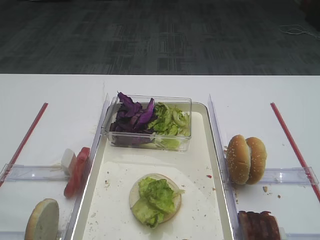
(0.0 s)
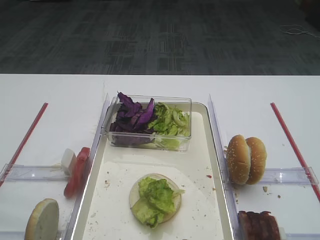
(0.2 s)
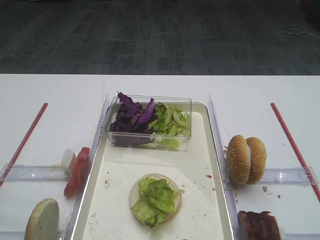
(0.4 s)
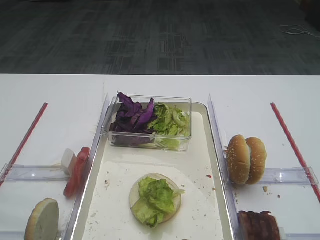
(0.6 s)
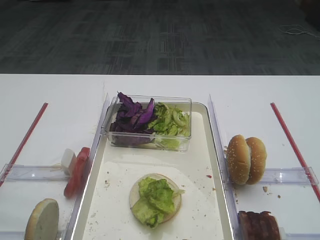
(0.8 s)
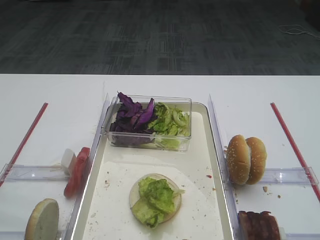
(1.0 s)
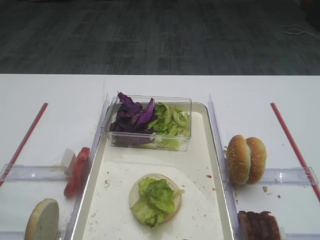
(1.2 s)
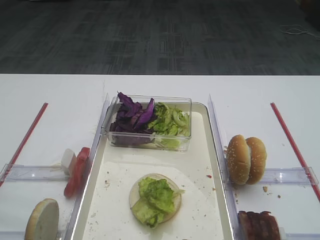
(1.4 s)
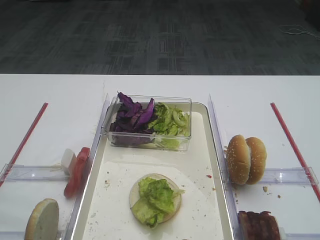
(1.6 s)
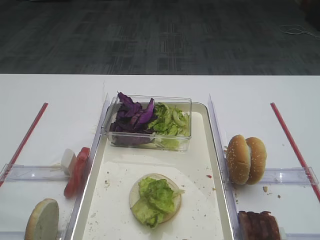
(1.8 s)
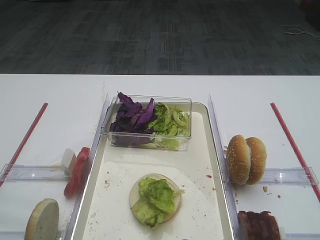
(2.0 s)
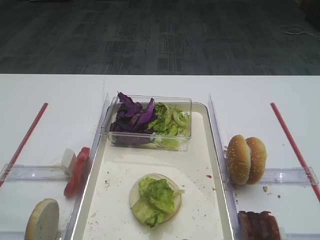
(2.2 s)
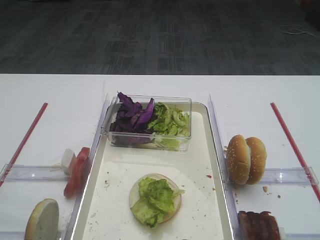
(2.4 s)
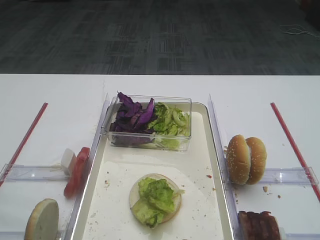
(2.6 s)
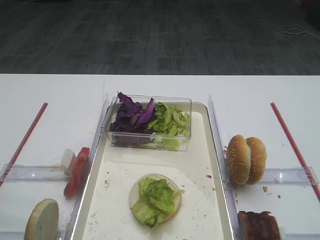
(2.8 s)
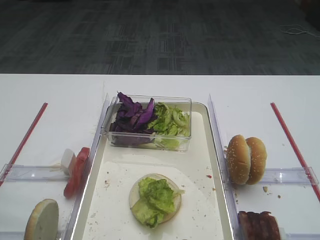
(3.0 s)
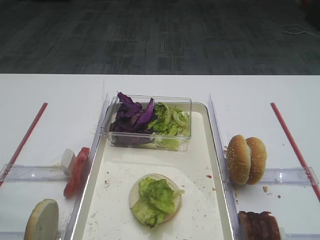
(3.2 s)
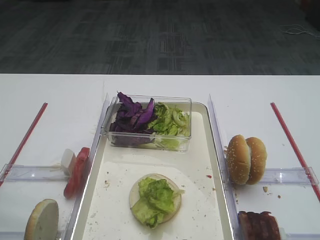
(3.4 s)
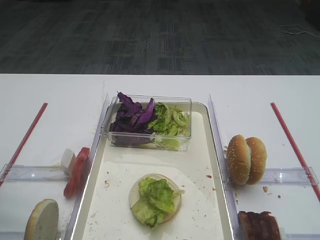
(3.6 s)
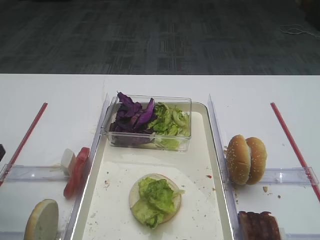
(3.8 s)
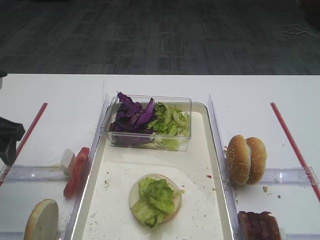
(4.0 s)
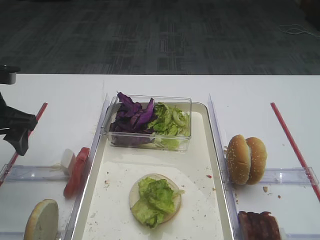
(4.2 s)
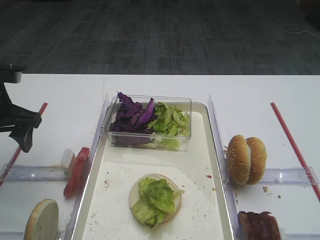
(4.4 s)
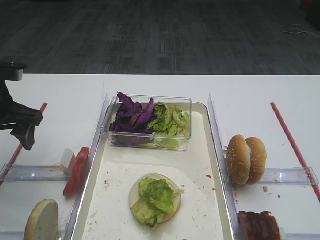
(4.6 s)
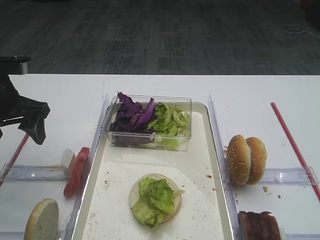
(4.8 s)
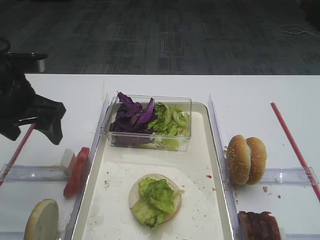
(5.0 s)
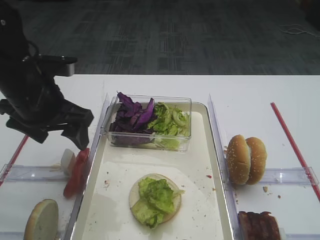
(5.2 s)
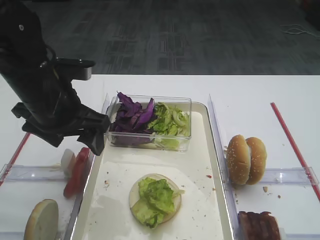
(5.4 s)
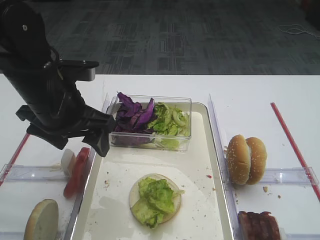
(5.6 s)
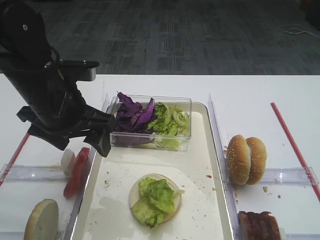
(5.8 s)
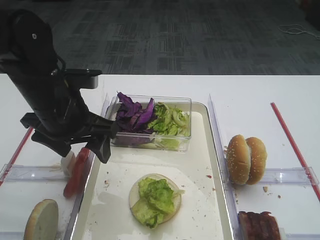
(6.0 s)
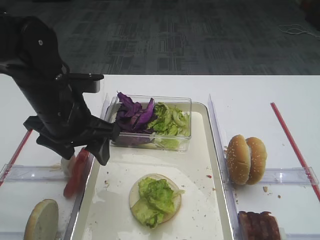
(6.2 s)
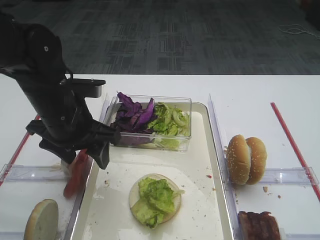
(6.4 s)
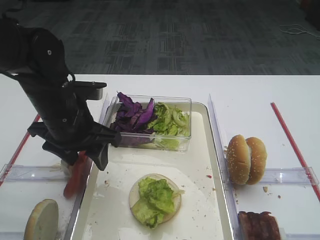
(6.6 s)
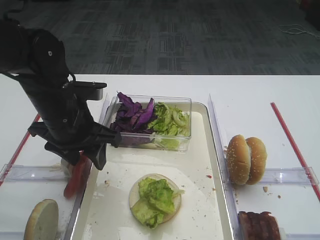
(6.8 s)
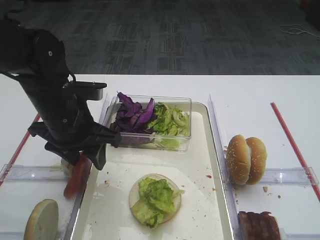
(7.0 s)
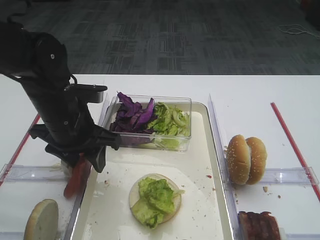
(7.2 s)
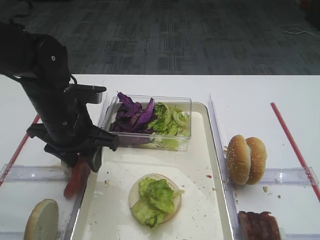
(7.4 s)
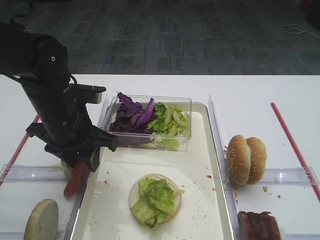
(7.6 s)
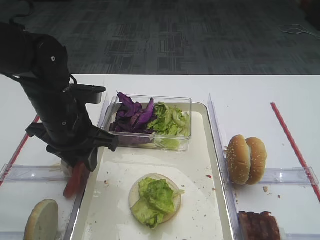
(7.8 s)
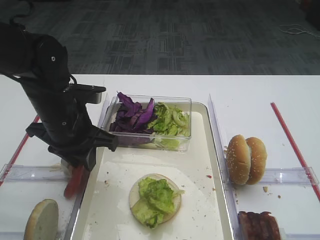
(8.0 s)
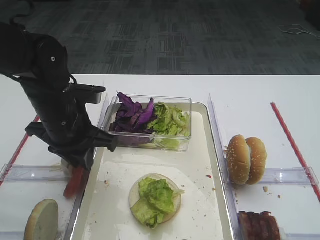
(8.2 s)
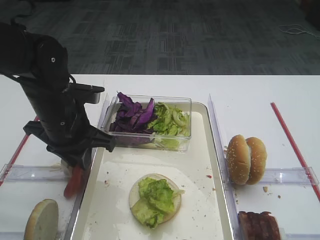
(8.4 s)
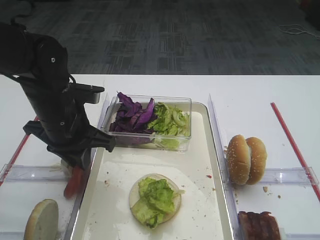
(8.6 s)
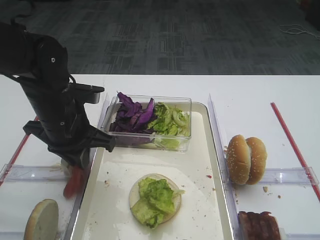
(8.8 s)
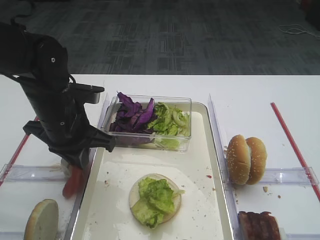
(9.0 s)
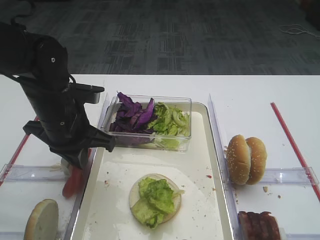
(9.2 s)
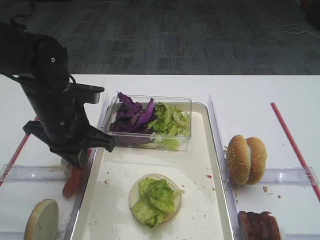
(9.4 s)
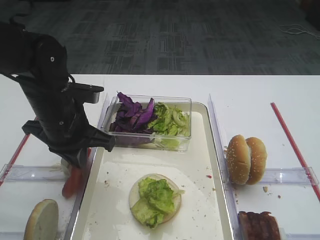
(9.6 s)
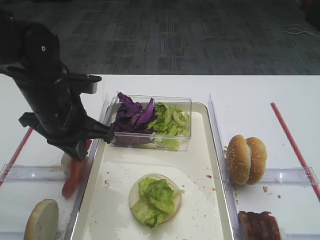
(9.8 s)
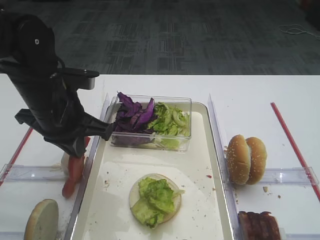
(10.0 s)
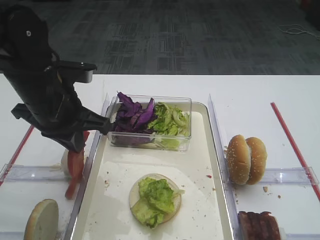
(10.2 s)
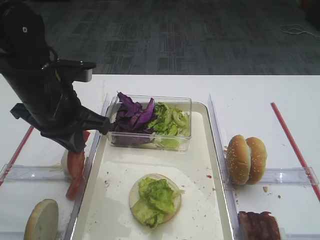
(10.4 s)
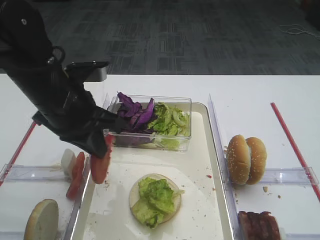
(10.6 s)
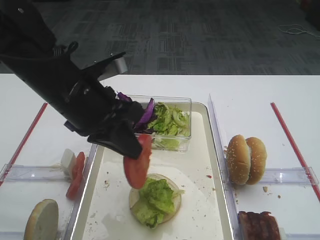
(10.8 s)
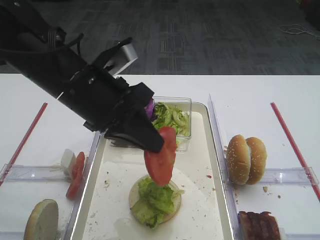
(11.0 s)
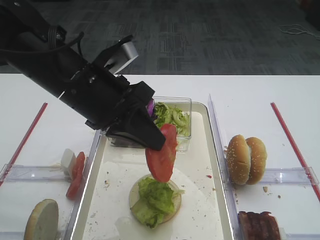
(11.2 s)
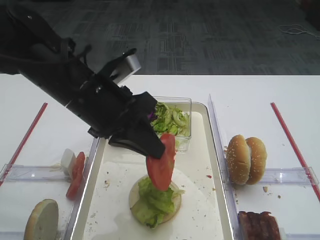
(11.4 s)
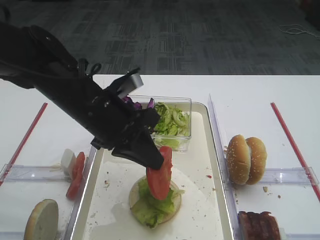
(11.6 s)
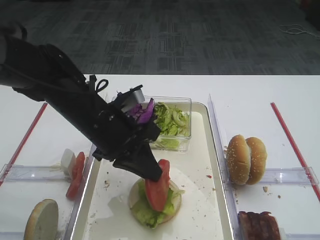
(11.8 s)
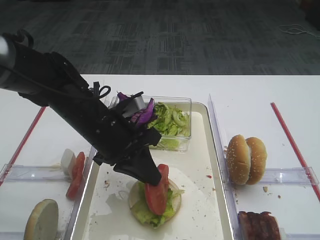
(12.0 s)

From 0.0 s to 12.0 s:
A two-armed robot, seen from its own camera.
Step, from 0.0 s to 10.2 s: Pick up the tomato slice with the left gripper.
From 3.0 s to 4.4 s: The left gripper heads forward, covering about 20 cm.
From 4.4 s to 6.0 s: The left gripper is displaced to the right by roughly 10 cm.
From 6.0 s to 7.6 s: The left gripper closes its fingers.
From 7.6 s to 9.0 s: The left gripper closes its fingers.
From 9.0 s to 10.4 s: The left gripper ends up approximately 5 cm from where it was.
From 10.4 s to 12.0 s: The left gripper goes some 10 cm to the right and downward.

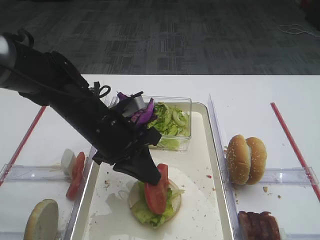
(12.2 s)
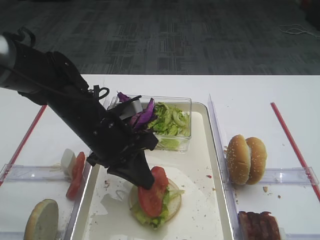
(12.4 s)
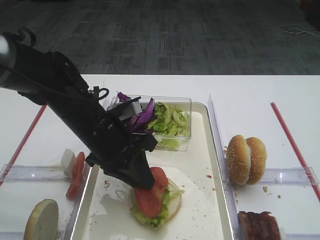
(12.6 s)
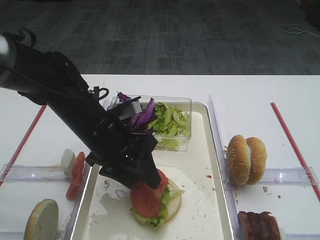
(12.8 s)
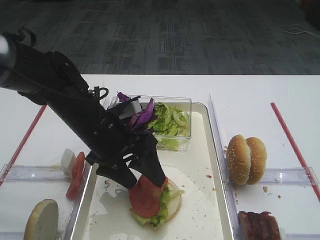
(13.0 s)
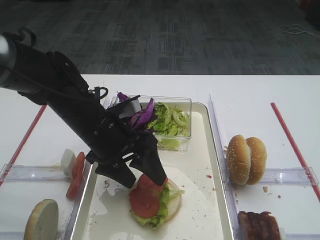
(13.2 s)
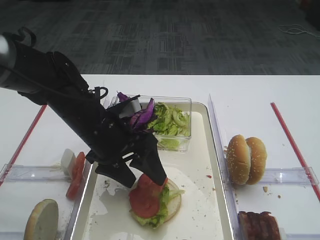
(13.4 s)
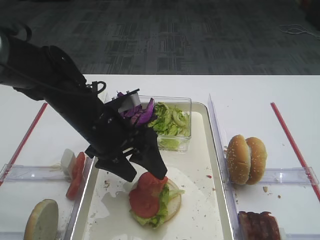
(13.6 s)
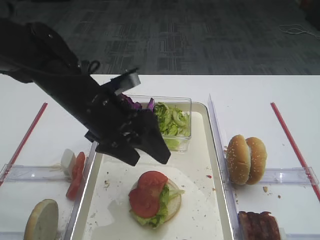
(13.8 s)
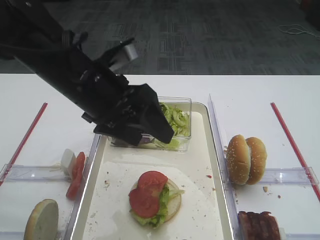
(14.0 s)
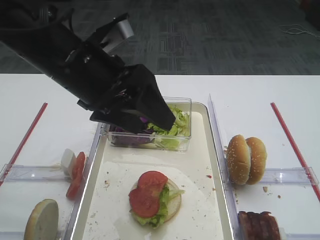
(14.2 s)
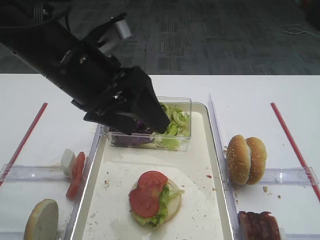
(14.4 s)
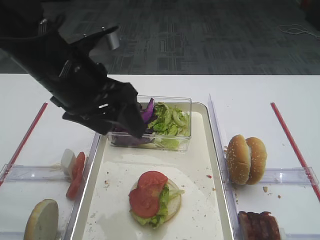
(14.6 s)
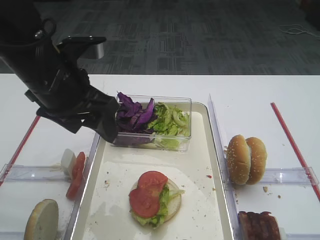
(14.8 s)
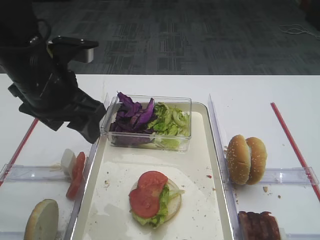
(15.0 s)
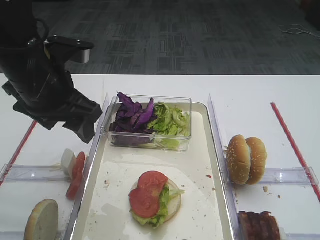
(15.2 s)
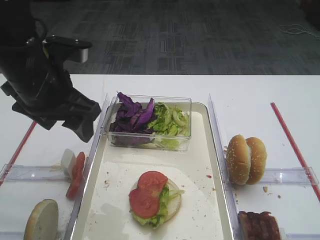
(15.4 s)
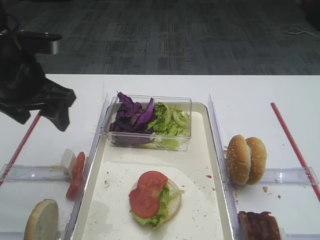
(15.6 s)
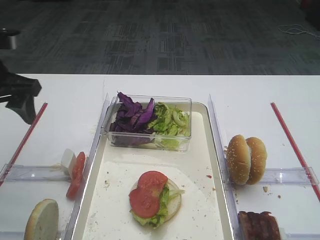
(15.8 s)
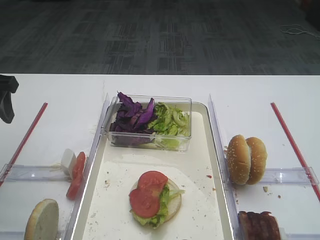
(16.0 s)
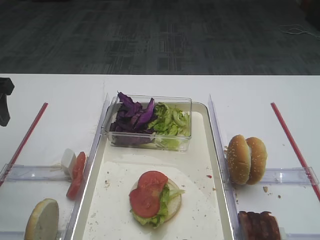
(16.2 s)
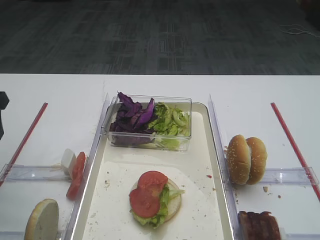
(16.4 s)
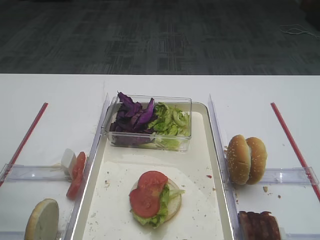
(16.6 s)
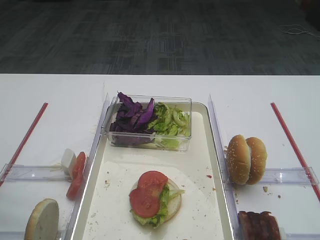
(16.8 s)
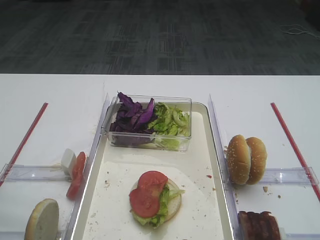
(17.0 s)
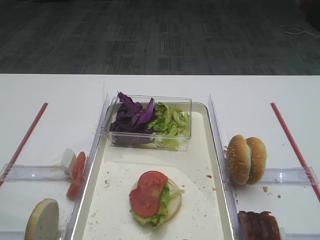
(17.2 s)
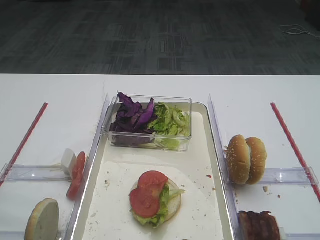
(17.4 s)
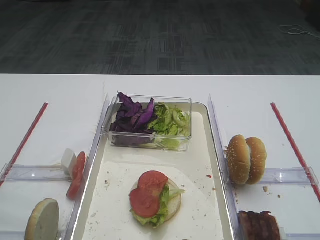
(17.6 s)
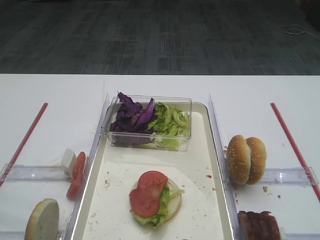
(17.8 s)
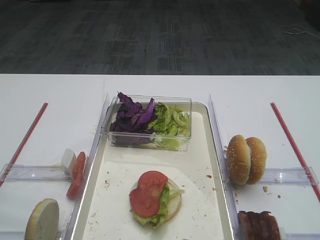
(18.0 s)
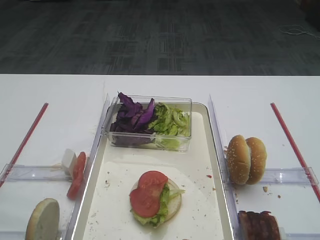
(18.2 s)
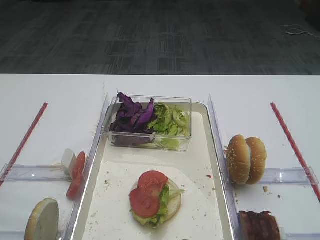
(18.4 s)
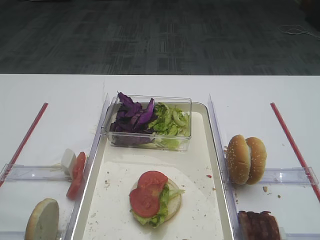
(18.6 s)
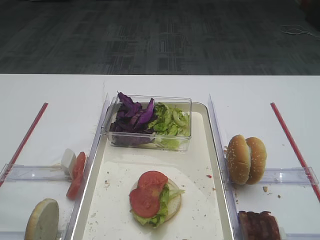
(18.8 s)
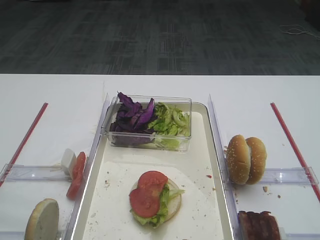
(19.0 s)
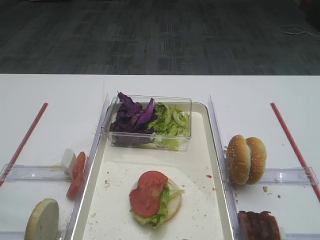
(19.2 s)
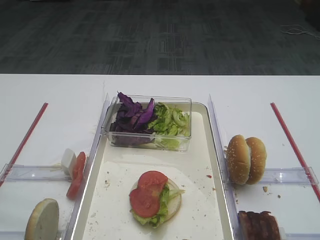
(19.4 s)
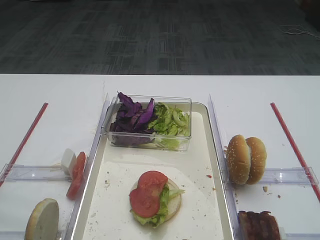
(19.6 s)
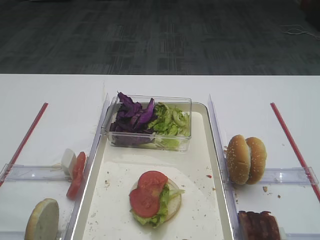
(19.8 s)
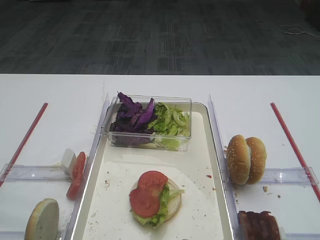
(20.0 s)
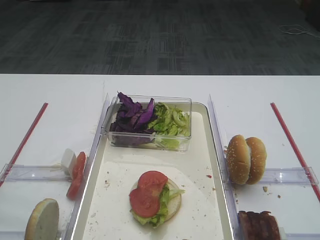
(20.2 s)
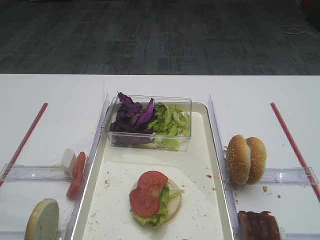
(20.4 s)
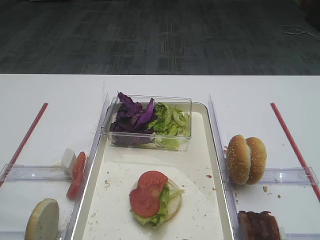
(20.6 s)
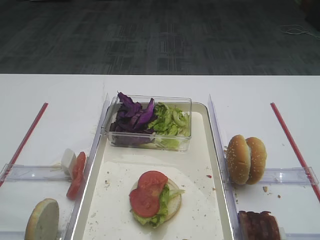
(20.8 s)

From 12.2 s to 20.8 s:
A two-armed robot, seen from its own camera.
From 12.2 s to 13.6 s: The left gripper opens its fingers.
From 13.6 s to 15.0 s: The left gripper moves upward and to the left, about 10 cm.
From 15.0 s to 16.6 s: The left gripper travels to the left by roughly 15 cm.
From 19.4 s to 20.8 s: Both grippers stay put.

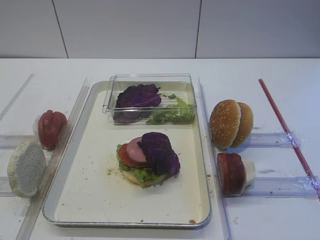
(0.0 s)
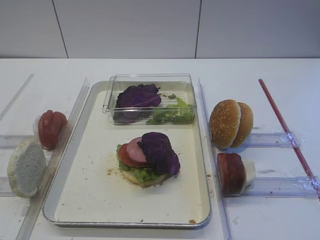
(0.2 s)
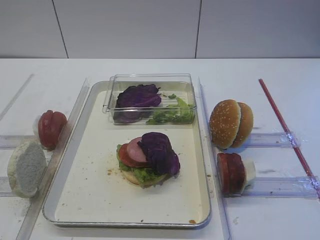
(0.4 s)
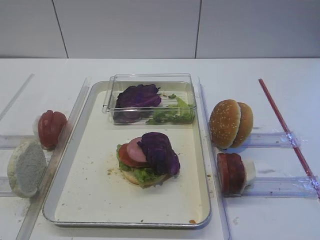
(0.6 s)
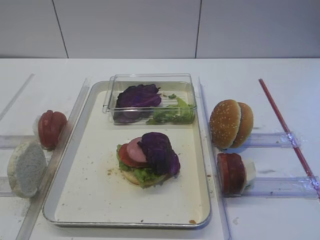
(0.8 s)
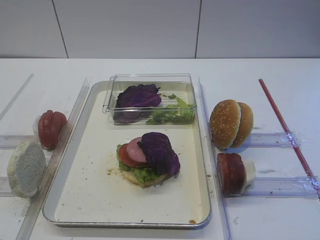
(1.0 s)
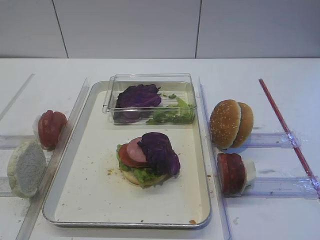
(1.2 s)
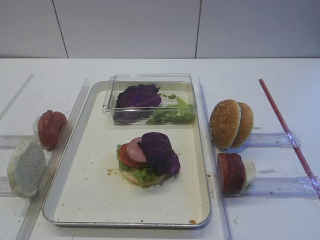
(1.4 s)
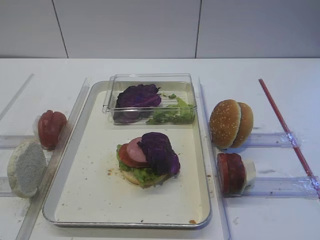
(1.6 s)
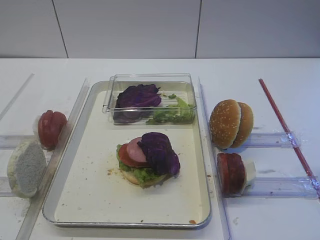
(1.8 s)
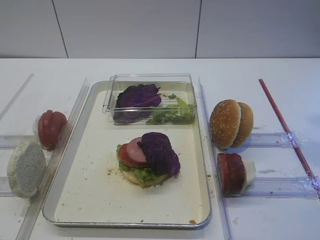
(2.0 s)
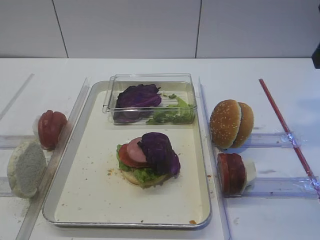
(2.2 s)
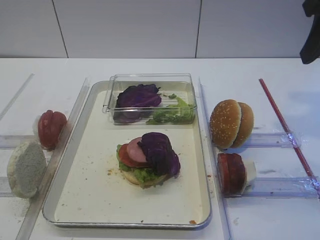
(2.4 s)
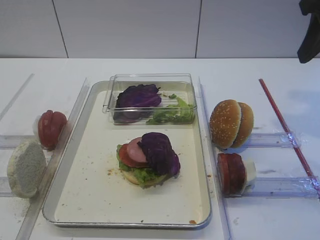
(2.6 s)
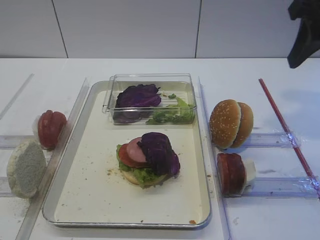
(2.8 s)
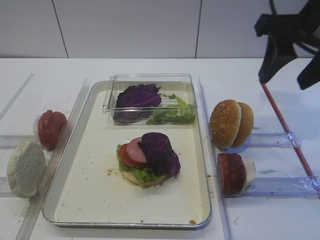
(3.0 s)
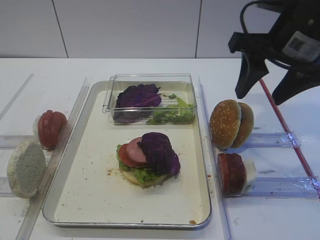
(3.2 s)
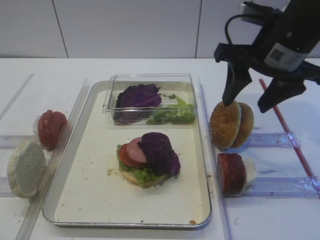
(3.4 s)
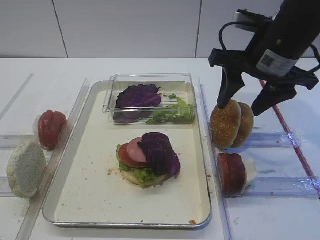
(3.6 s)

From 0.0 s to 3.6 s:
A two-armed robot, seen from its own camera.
From 1.8 s to 3.6 s: The right gripper shifts some 20 cm forward, to the left and downward.
